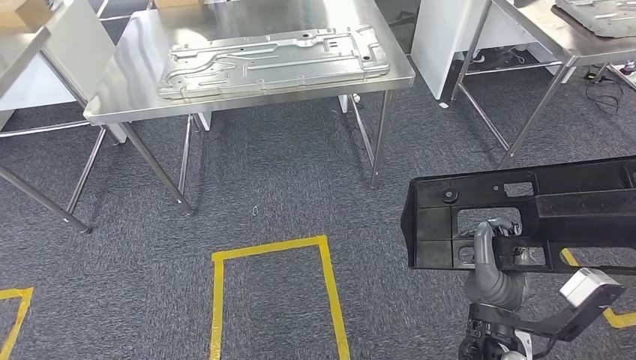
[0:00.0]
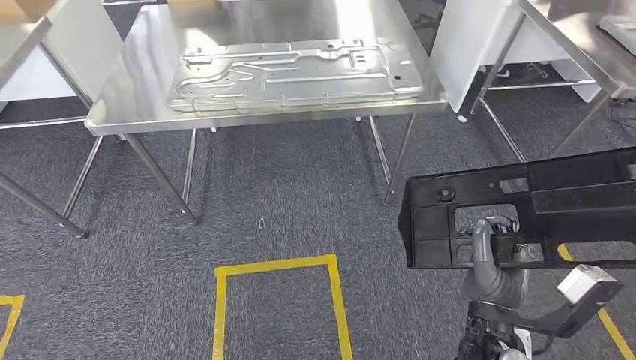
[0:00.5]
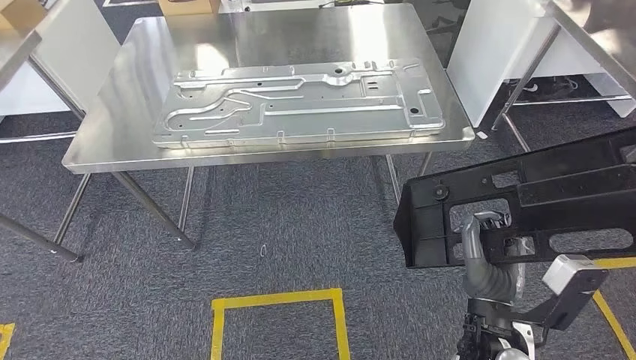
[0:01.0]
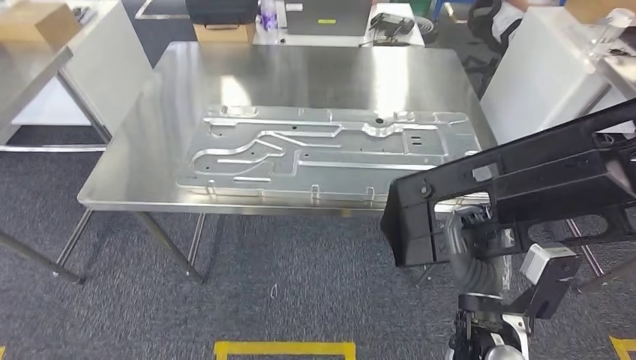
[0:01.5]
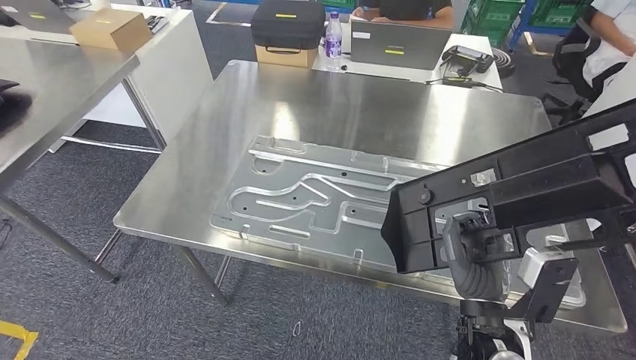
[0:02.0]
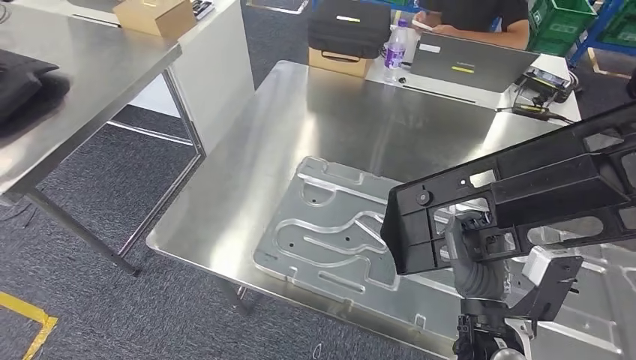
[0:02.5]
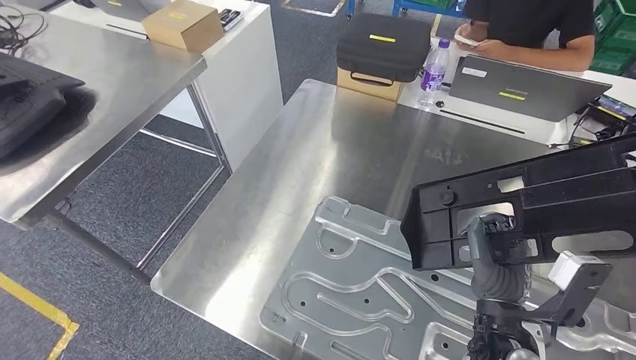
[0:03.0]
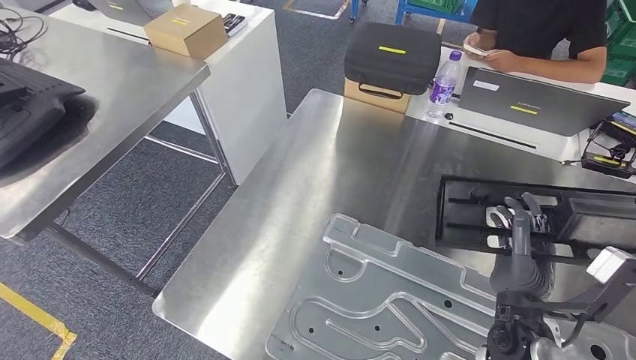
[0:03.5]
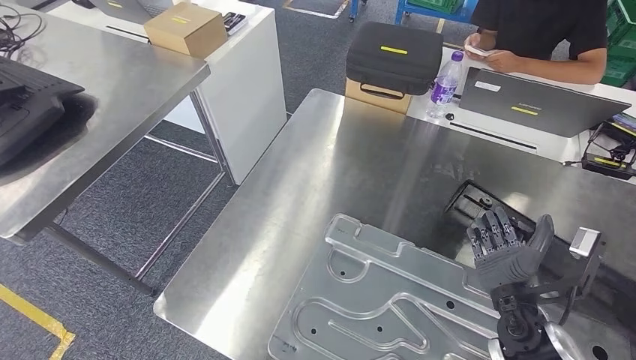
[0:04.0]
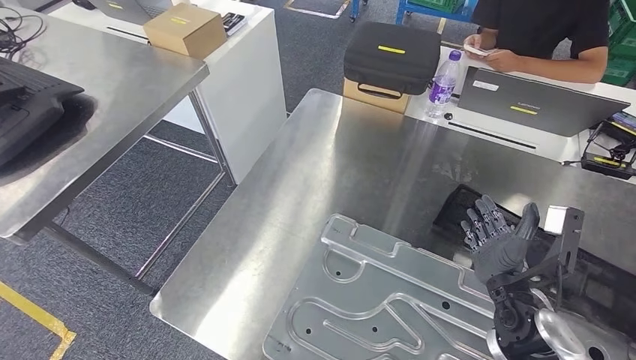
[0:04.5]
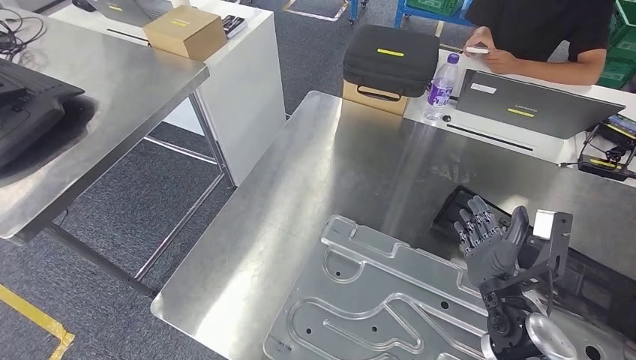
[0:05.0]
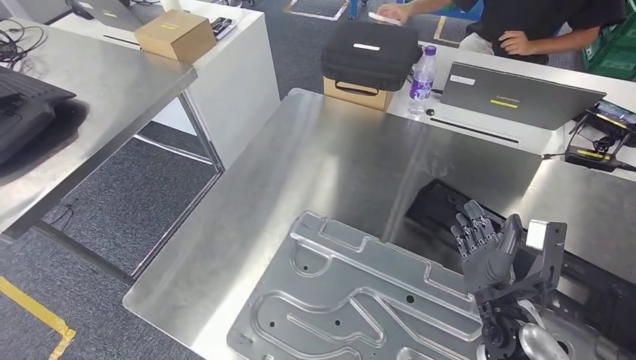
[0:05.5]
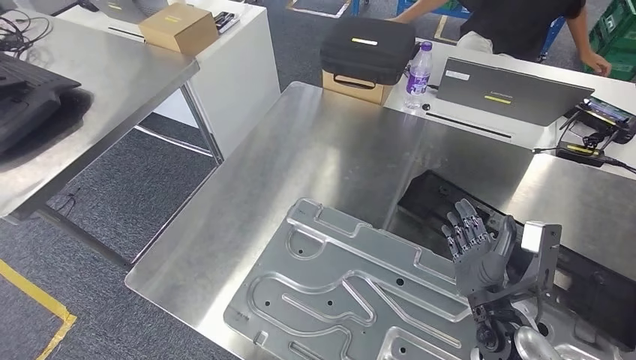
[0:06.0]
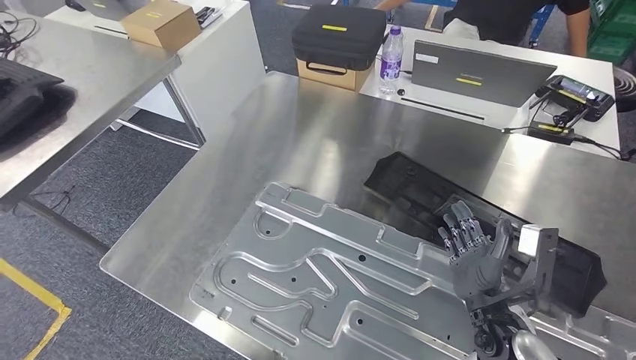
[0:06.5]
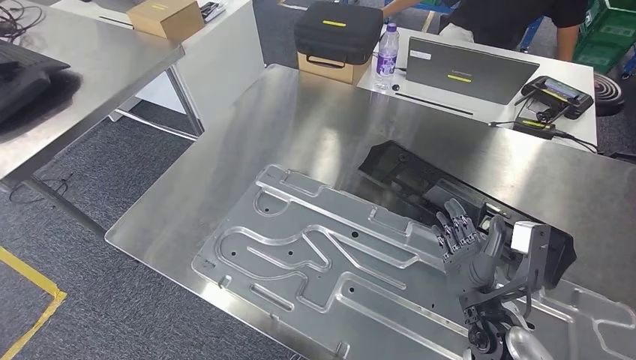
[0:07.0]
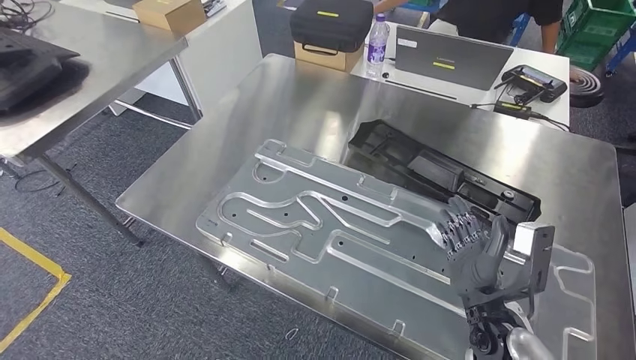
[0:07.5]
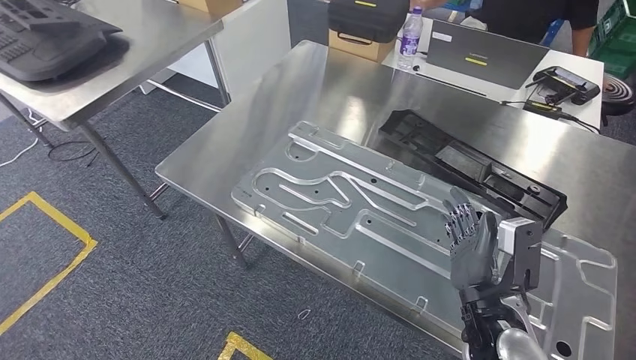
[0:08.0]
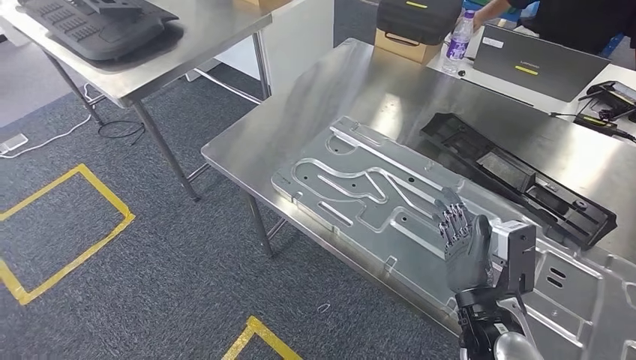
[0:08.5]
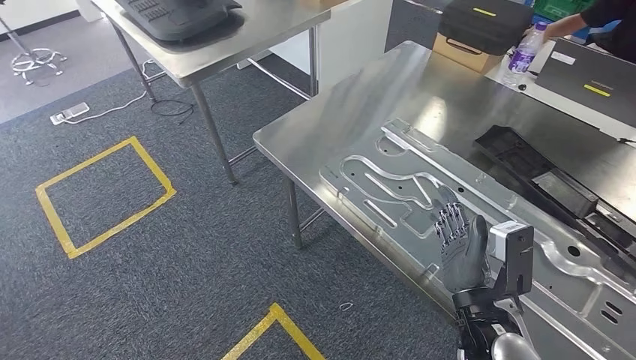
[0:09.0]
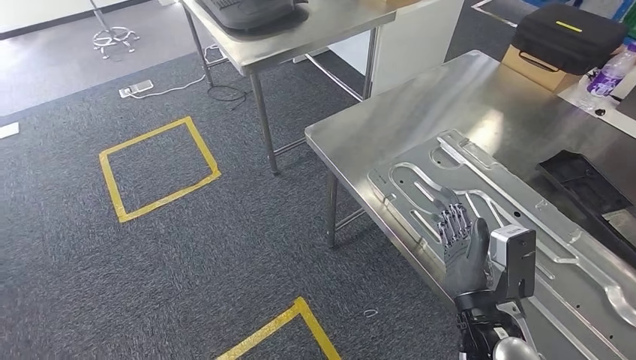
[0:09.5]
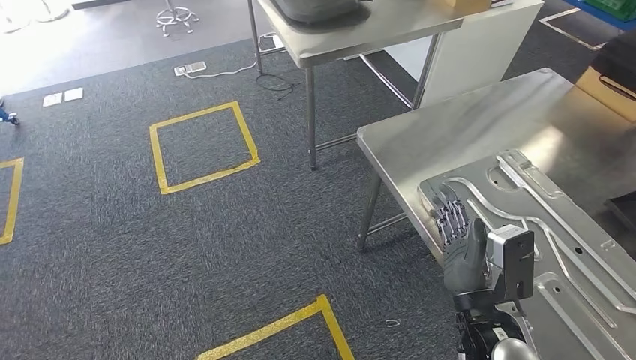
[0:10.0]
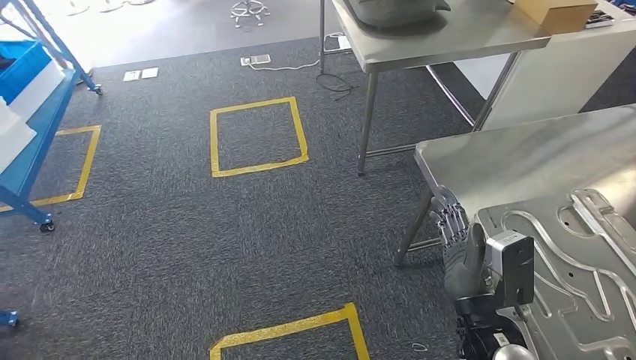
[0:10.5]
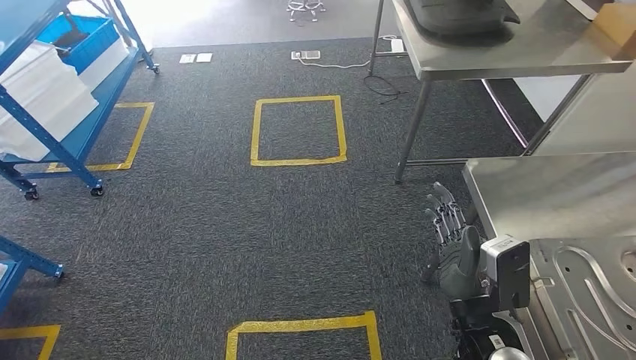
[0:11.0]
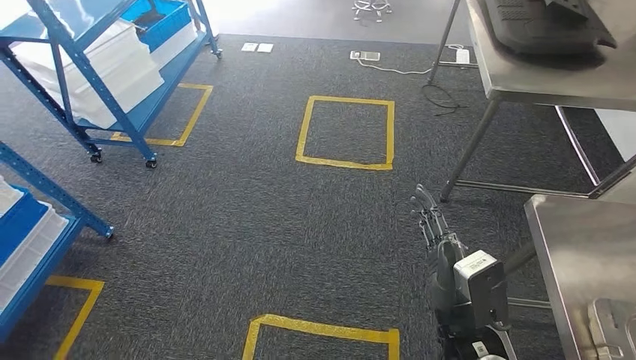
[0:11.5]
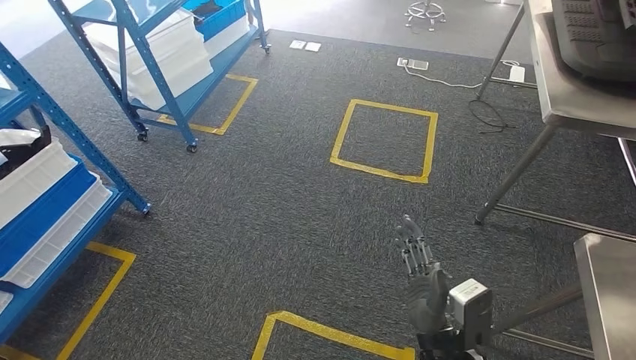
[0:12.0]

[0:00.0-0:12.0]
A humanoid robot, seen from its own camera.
Step, 0:00.0 to 0:02.0: Move the large material to the workbench.
Step, 0:03.5 to 0:07.0: Insert the large material into the corresponding slot on the workbench.

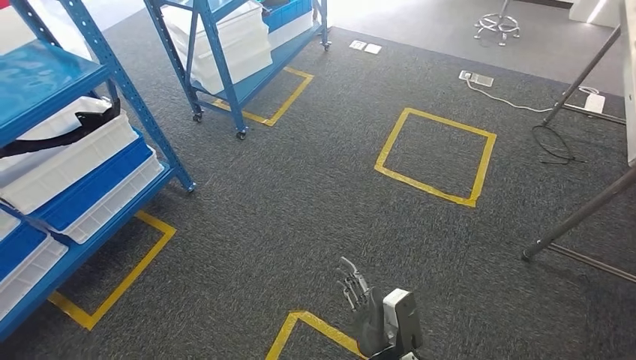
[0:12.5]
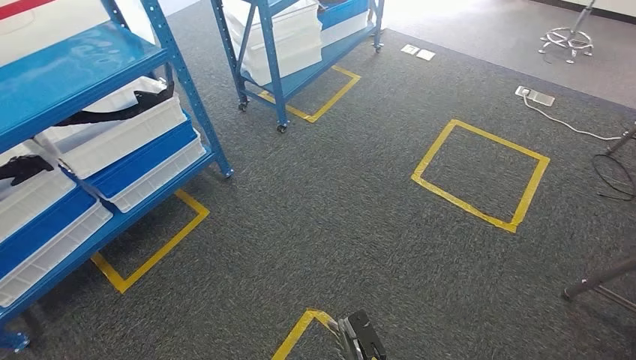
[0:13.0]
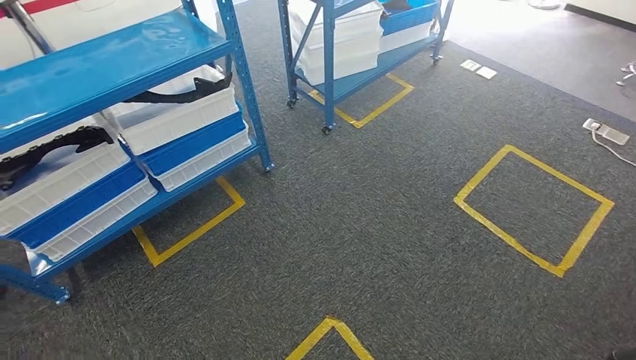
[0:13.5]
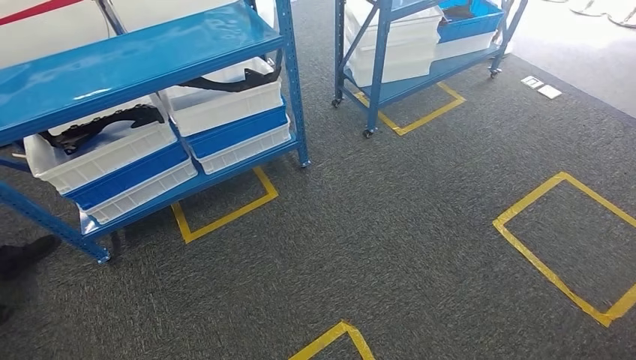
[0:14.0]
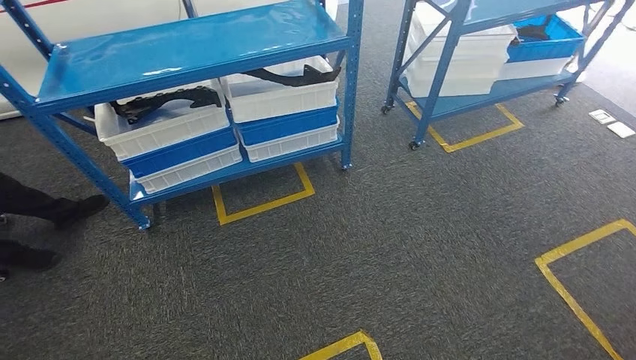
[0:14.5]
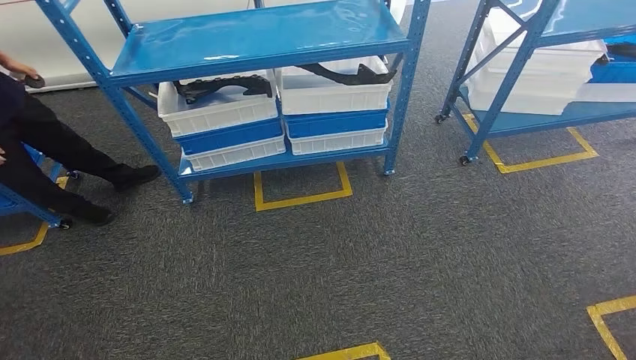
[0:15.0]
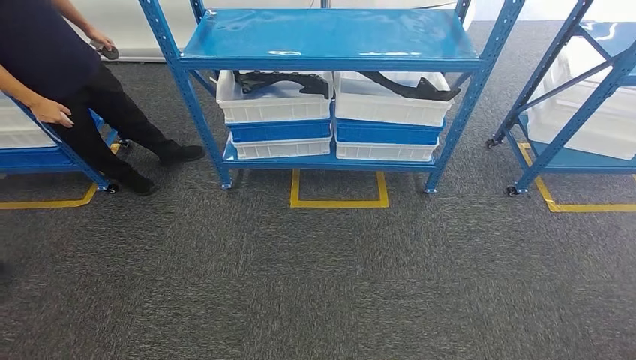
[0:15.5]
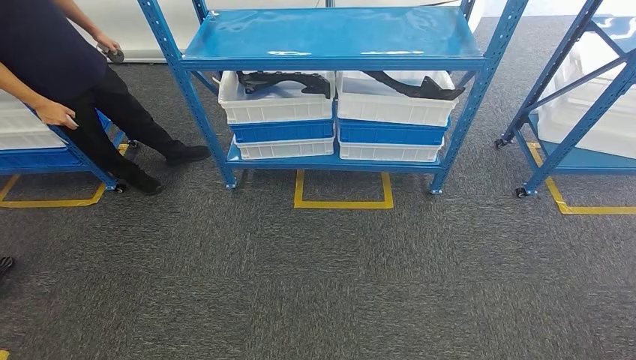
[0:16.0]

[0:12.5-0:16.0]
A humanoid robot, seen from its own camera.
Step, 0:12.5 to 0:16.0: Move to the initial position of the shelf.
